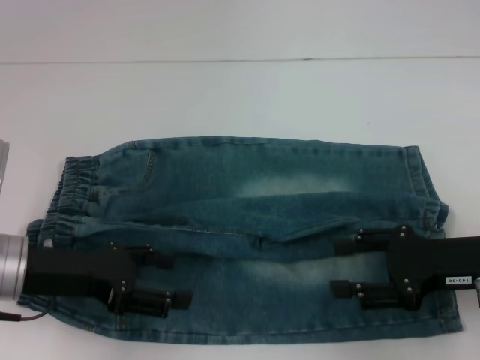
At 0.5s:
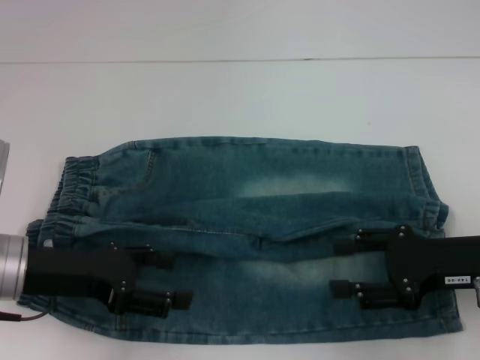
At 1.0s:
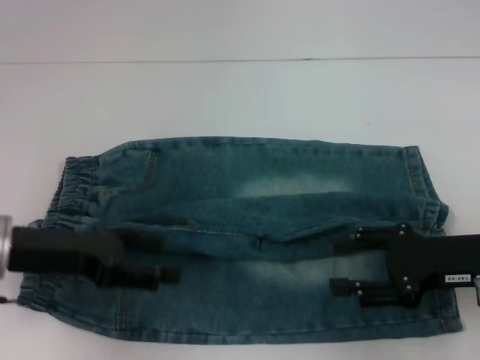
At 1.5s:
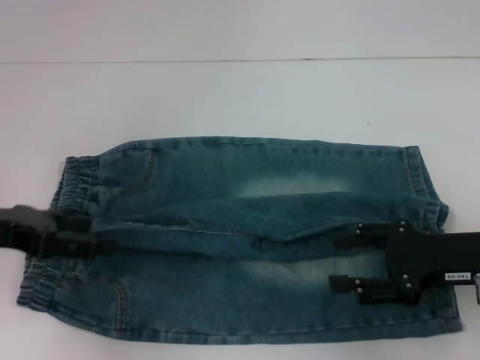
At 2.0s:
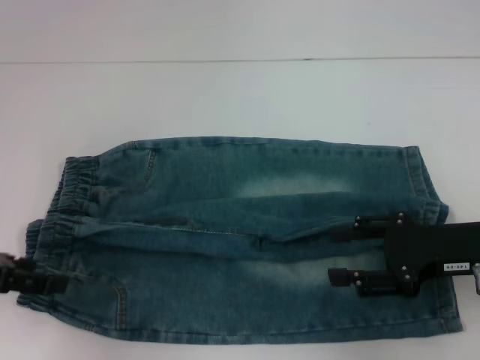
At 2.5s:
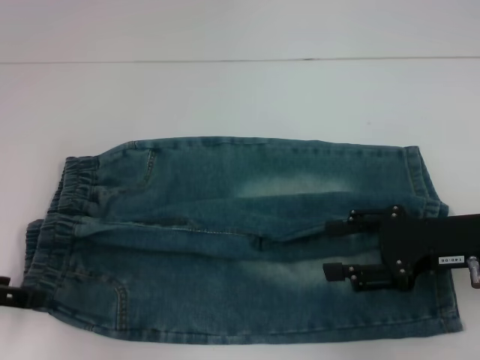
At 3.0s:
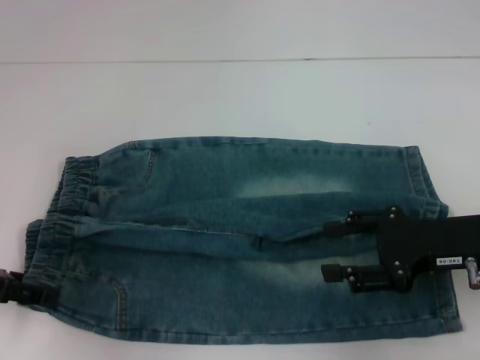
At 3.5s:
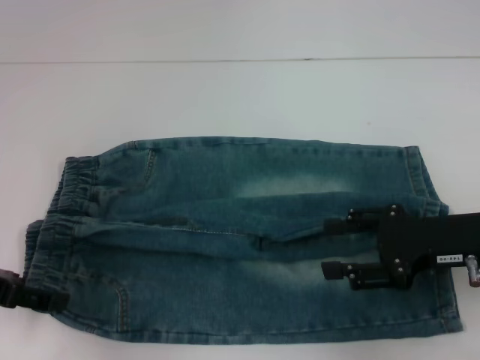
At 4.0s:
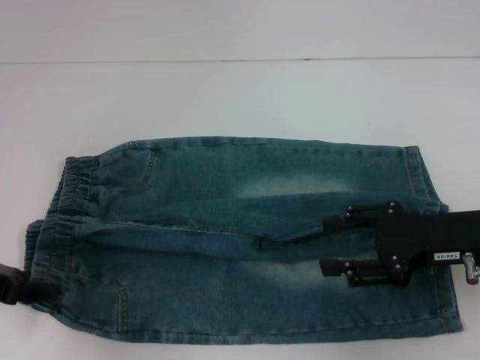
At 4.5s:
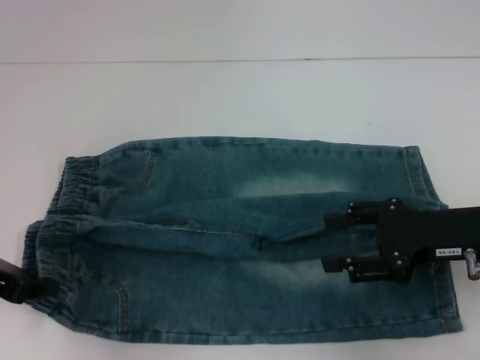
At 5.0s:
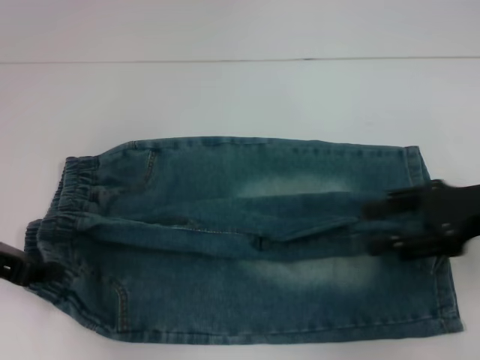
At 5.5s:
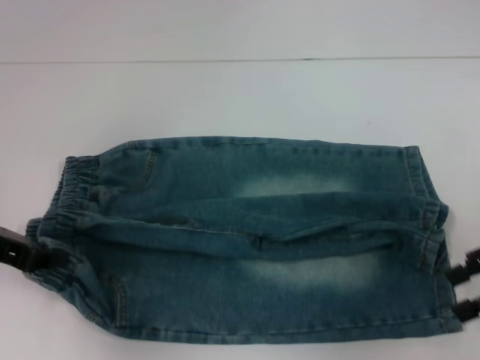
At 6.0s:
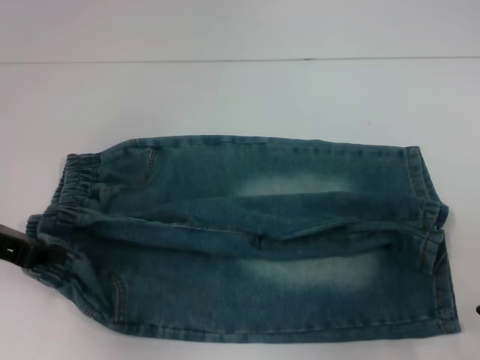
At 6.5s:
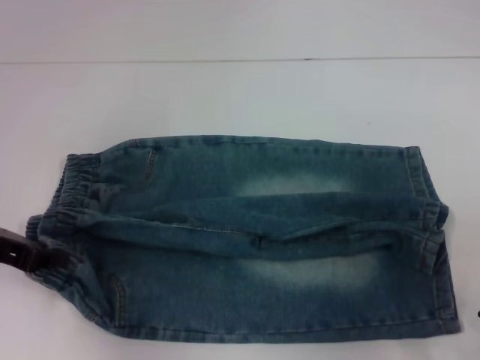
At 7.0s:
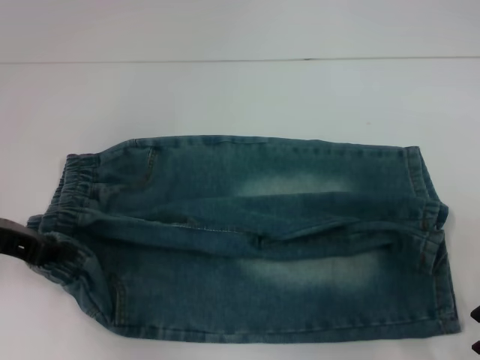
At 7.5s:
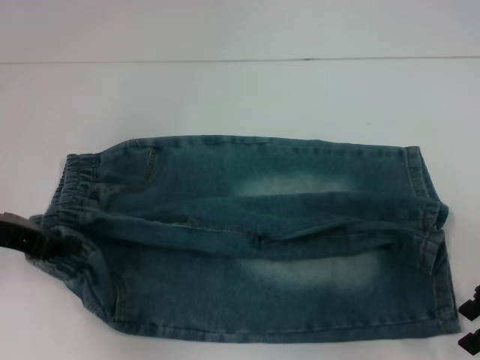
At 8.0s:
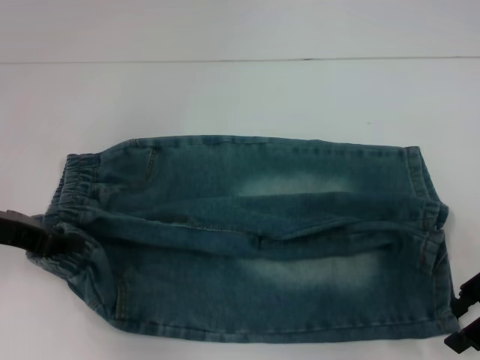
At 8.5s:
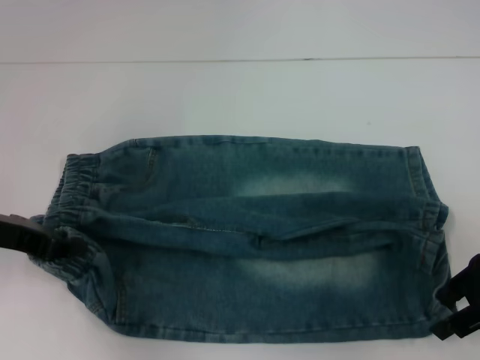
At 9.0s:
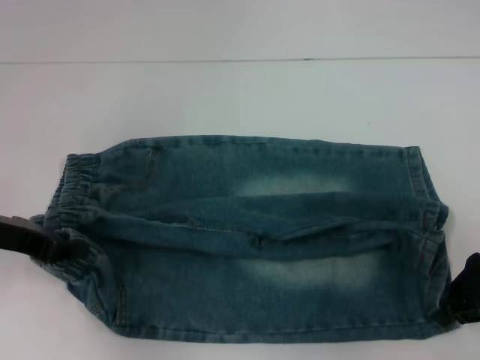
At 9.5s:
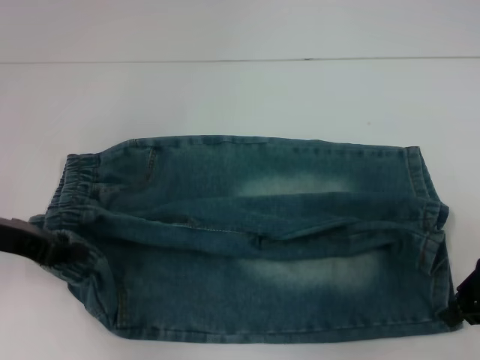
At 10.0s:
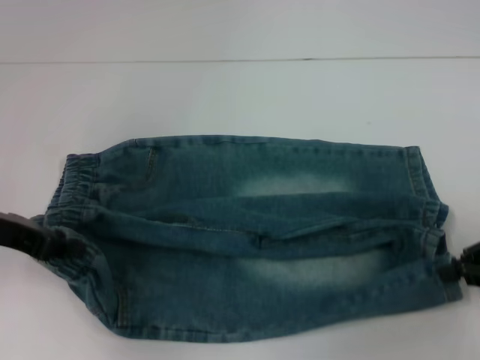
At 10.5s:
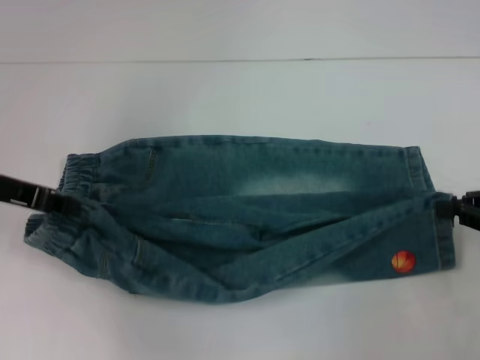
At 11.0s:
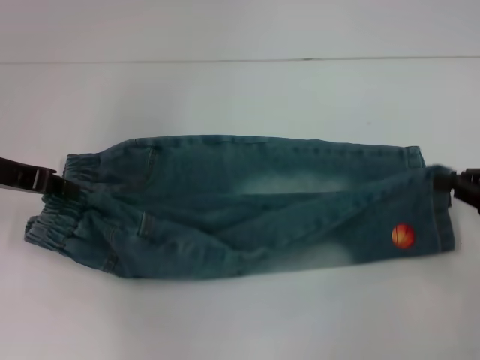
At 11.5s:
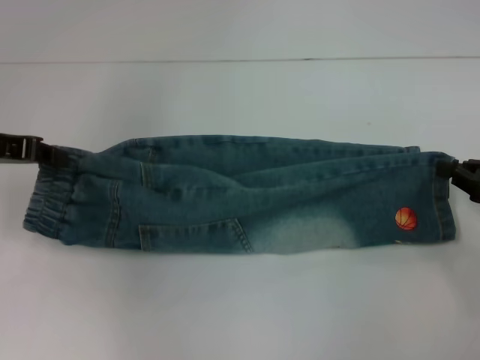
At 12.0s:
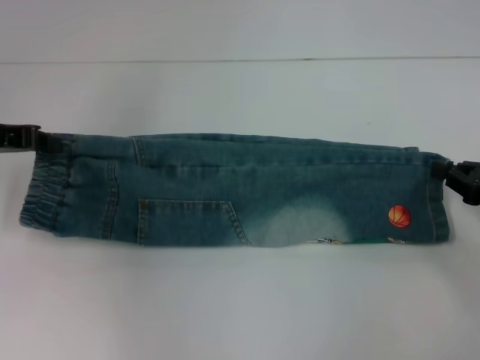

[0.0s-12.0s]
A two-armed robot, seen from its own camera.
Step, 0.0s to 4.5s: Hold the lower left waistband with your left hand.
Step, 5.0s to 9.0s: Grab the lower right pant leg with your right hand.
0.0s to 2.0s: The left gripper travels to the left and upward by approximately 10 cm.
2.0s to 4.0s: The grippers make only small movements.
4.0s to 6.0s: The left gripper closes up, while the right gripper moves to the right, roughly 10 cm.
6.0s to 8.0s: The right gripper moves roughly 5 cm.
8.0s to 10.0s: The right gripper moves to the right, about 5 cm, and closes.
10.0s to 12.0s: The left gripper travels forward by approximately 5 cm.

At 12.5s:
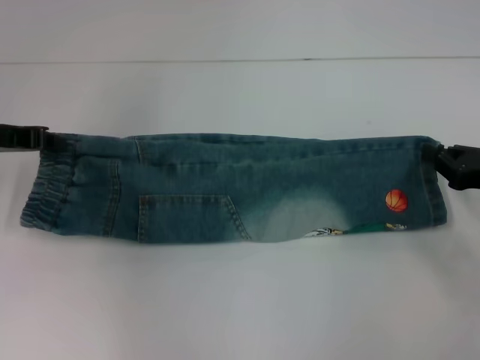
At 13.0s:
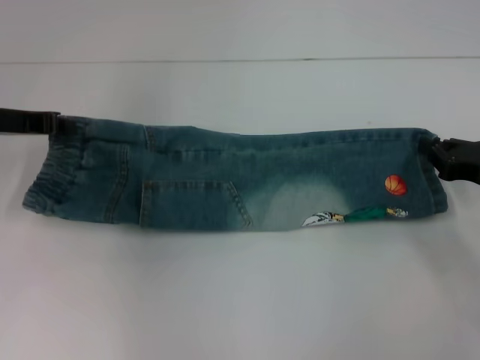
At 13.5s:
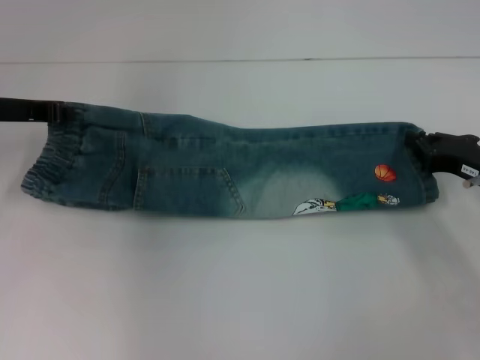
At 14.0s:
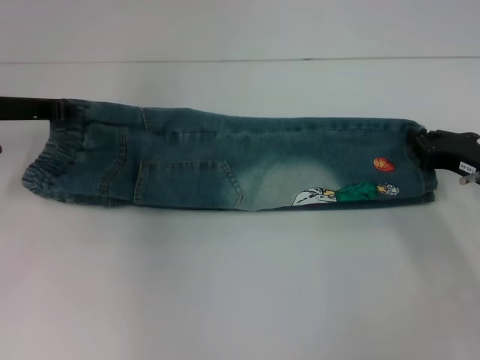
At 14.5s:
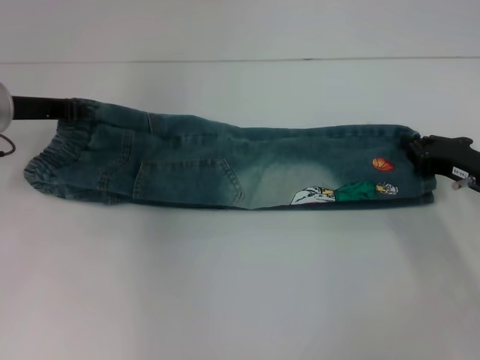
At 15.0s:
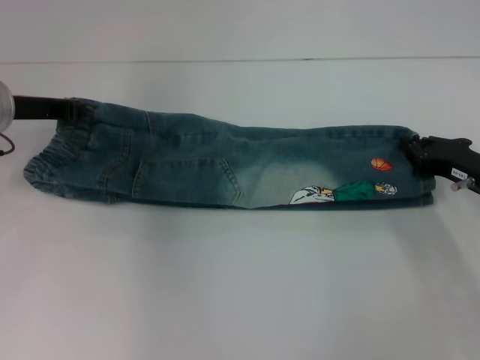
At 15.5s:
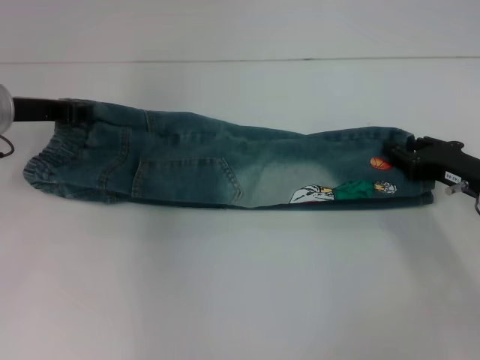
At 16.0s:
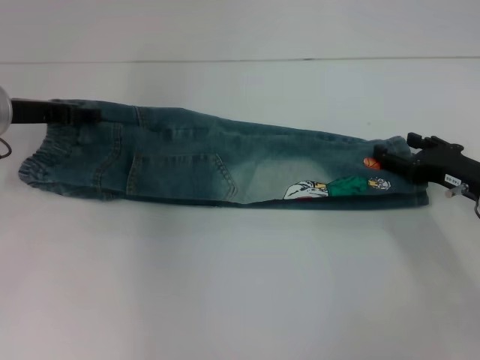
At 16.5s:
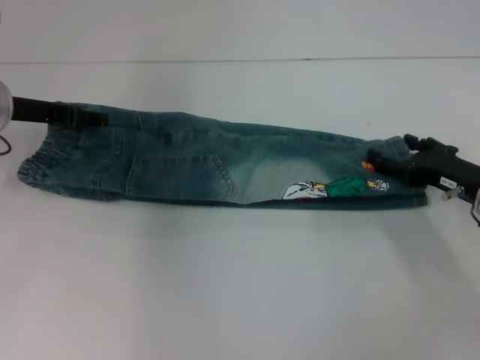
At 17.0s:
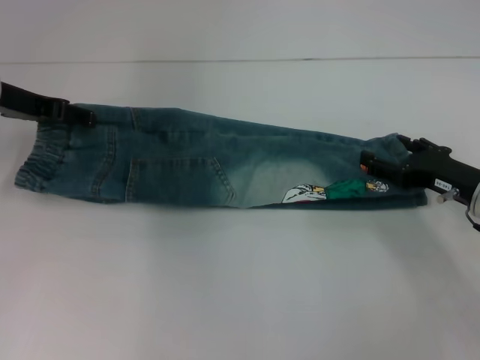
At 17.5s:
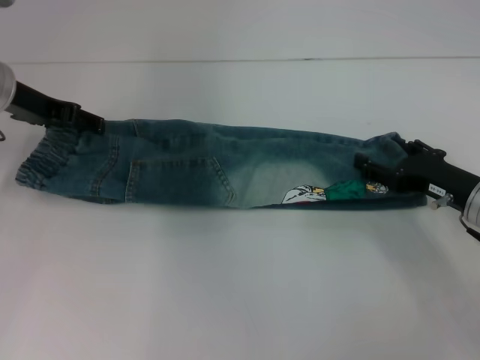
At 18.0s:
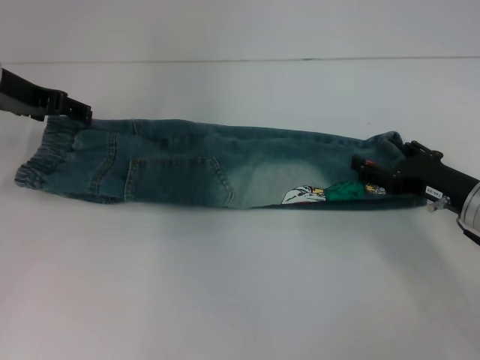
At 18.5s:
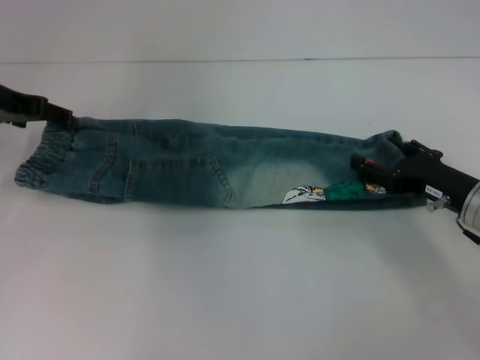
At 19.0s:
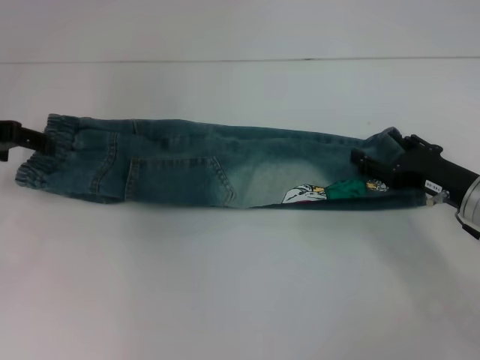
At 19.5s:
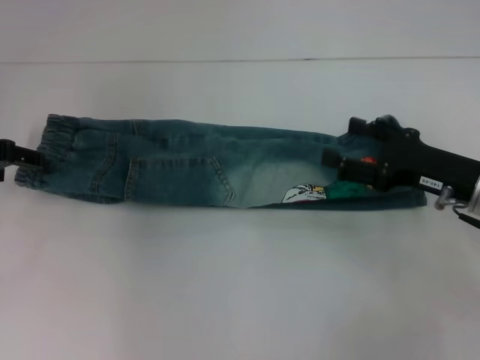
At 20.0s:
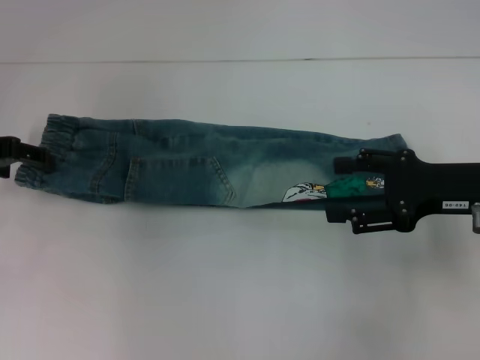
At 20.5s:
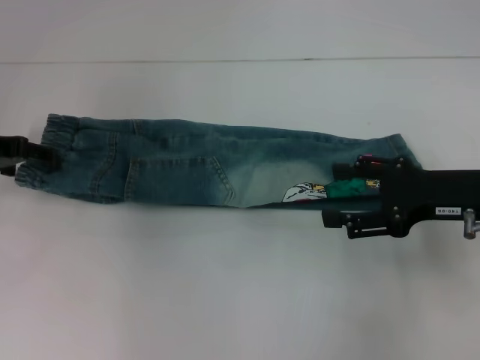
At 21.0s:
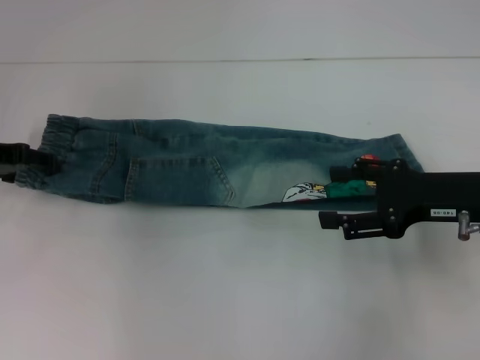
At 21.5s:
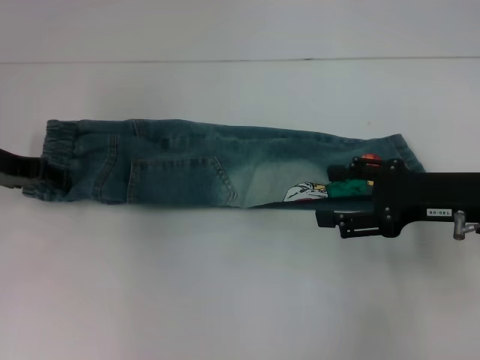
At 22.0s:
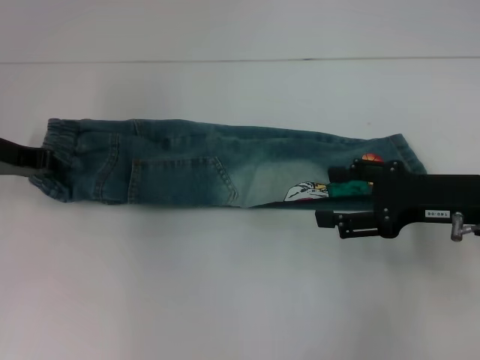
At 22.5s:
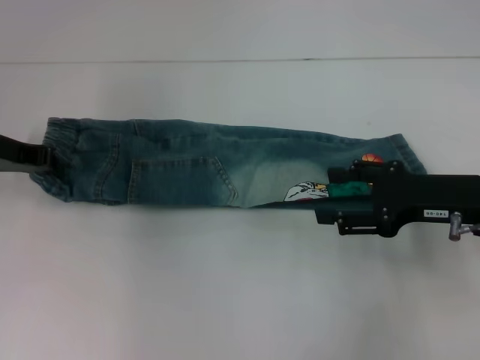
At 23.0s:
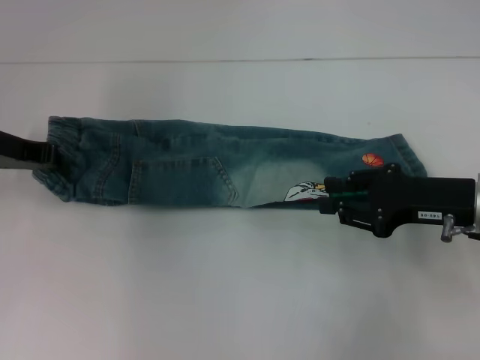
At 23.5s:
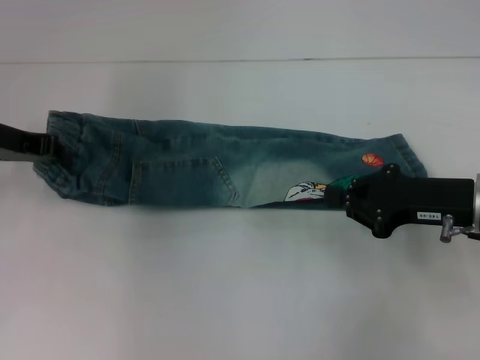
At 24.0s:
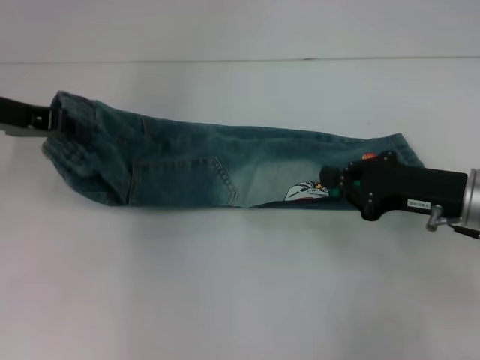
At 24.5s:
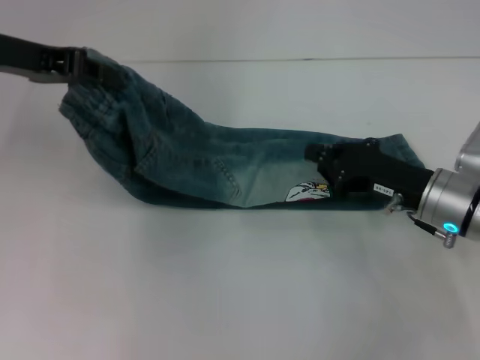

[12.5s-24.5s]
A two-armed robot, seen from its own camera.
Step, 12.5s to 19.0s: Fold upward with your right hand.
Step, 19.5s to 22.5s: Hold the waistband with your left hand.
12.5s to 14.5s: The right gripper ends up some 5 cm from where it was, while the left gripper shifts by about 5 cm.
14.5s to 16.5s: The right gripper opens its fingers. Meanwhile the left gripper opens up.
16.5s to 18.5s: The grippers stay close to where they were, moving slightly.
18.5s to 20.5s: The right gripper travels upward by roughly 10 cm. The left gripper shifts by some 5 cm.
20.5s to 22.5s: The left gripper closes.
22.5s to 24.5s: The right gripper ends up about 5 cm from where it was, and closes its fingers, while the left gripper is displaced upward by roughly 10 cm.

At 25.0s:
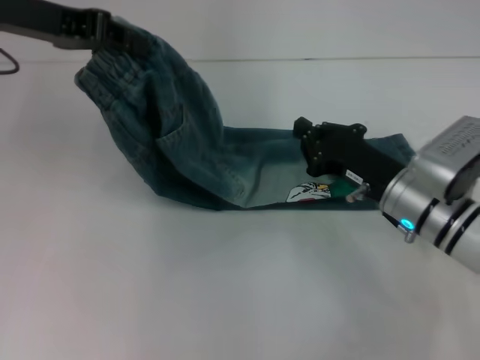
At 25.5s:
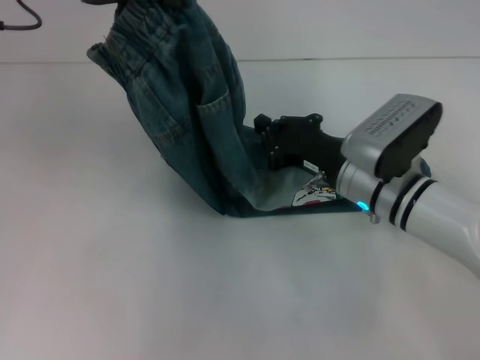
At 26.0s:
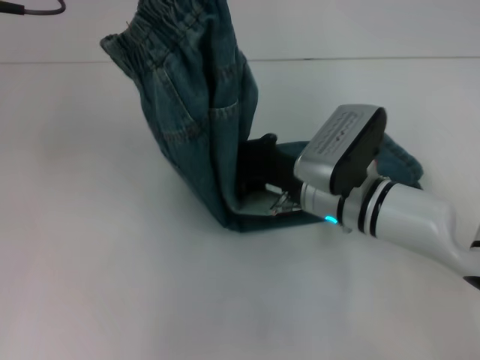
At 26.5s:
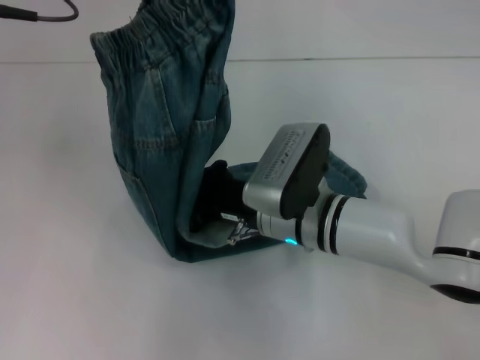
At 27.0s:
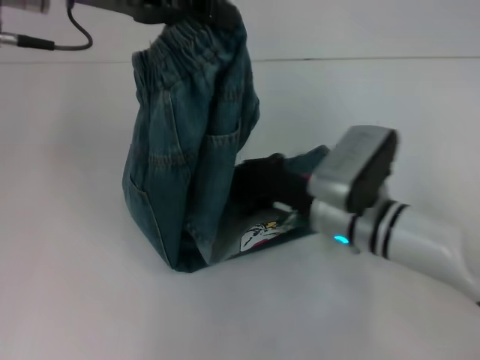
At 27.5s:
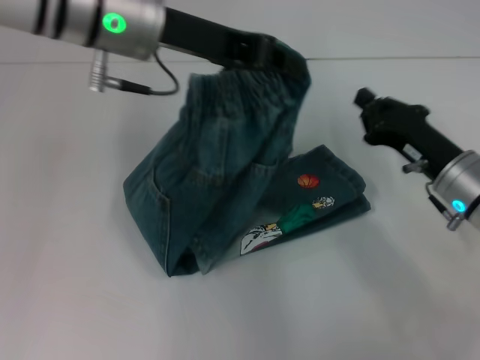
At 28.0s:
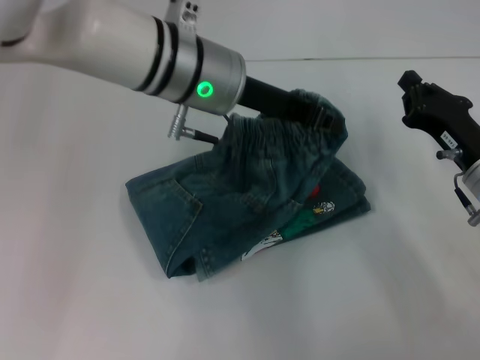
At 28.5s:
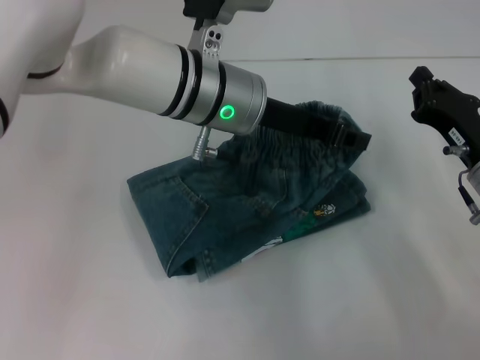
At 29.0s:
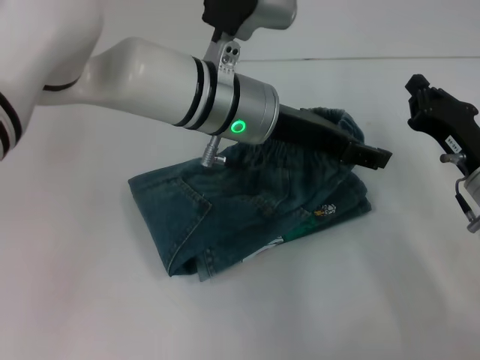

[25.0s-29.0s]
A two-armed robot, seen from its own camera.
Step, 25.0s to 27.0s: Press the middle of the pants with your right hand.
25.0s to 27.0s: The left gripper goes some 5 cm to the right. The right gripper goes about 5 cm to the left.
27.0s to 29.0s: The right gripper shifts about 15 cm to the right, while the left gripper travels to the right and downward by some 20 cm, and opens.
